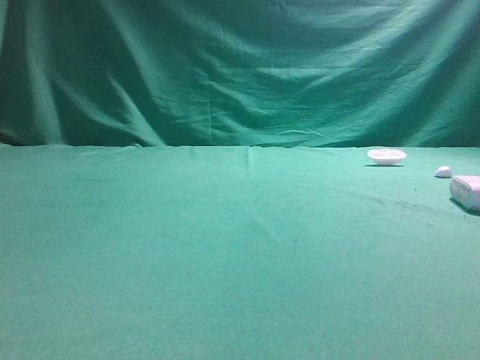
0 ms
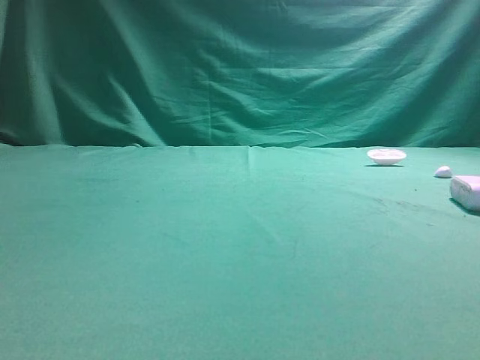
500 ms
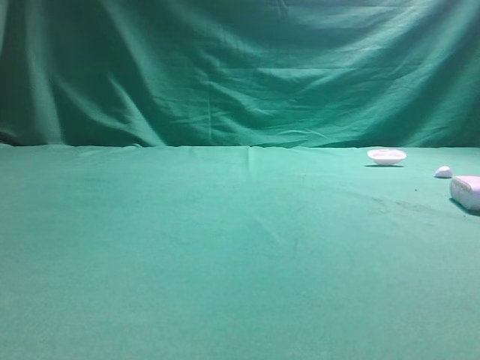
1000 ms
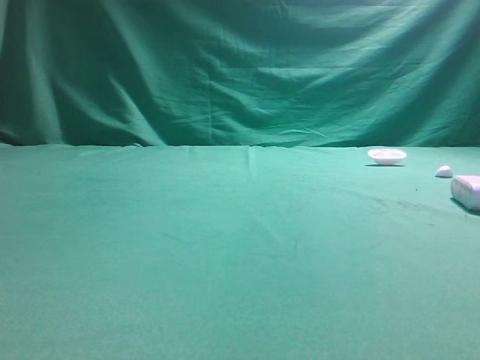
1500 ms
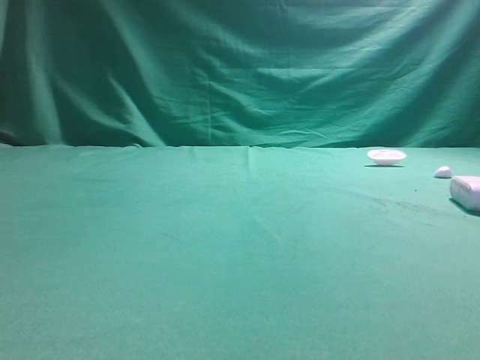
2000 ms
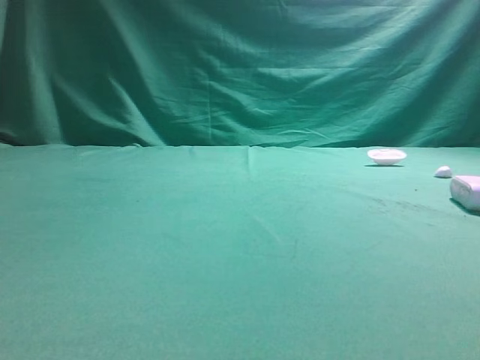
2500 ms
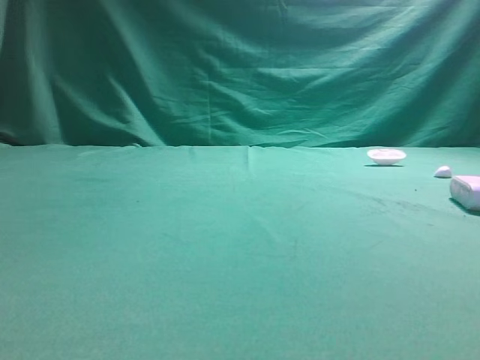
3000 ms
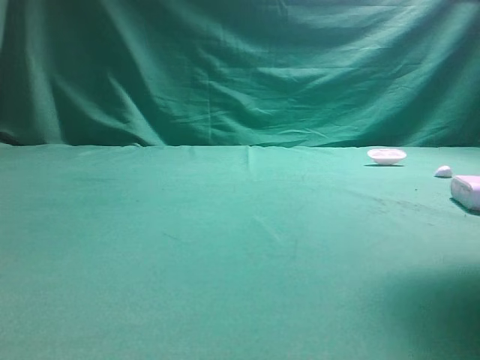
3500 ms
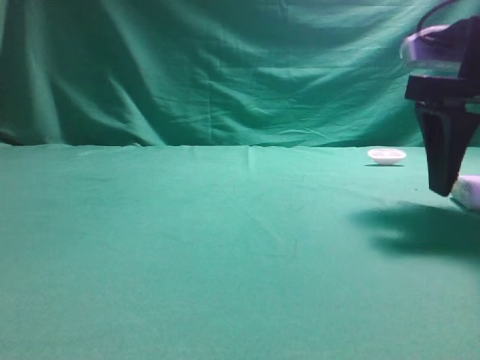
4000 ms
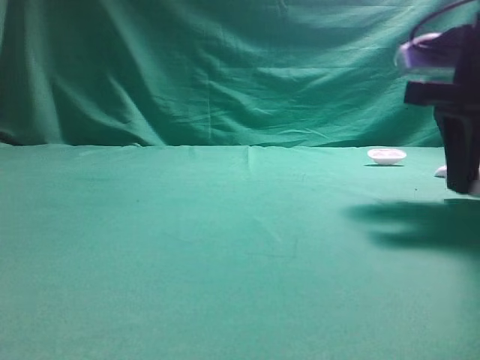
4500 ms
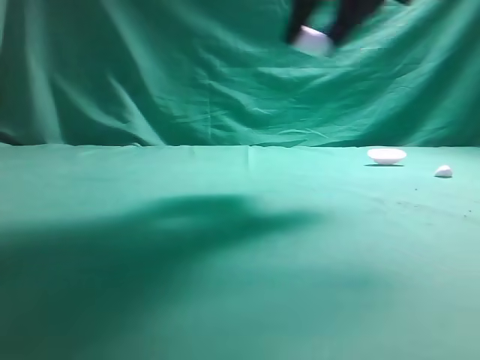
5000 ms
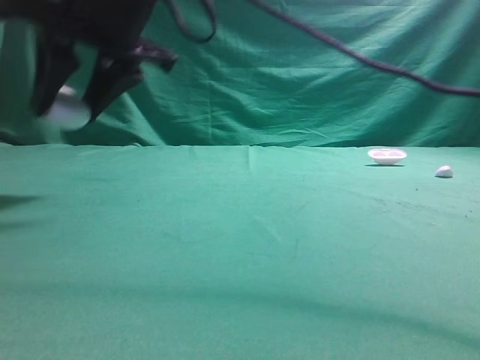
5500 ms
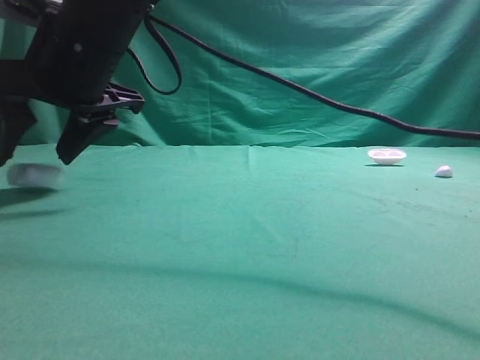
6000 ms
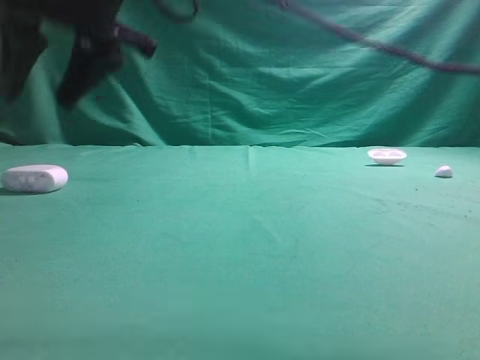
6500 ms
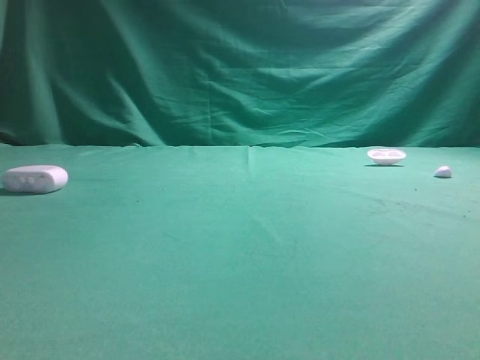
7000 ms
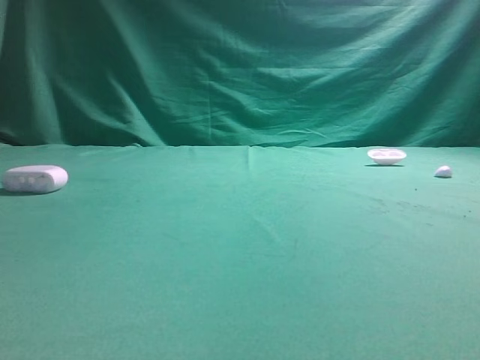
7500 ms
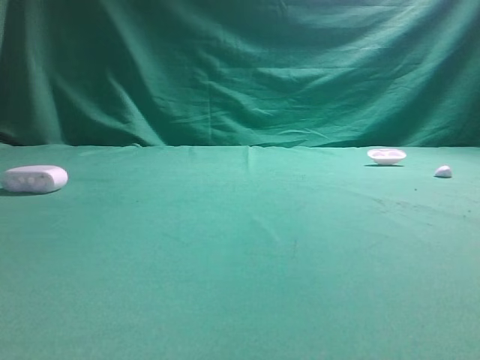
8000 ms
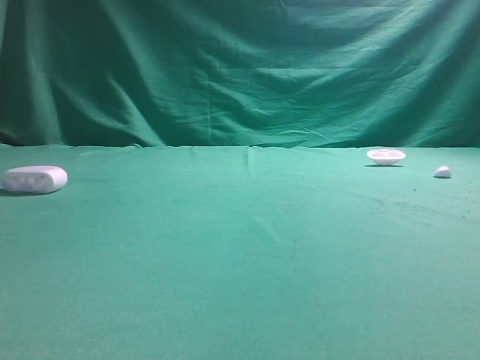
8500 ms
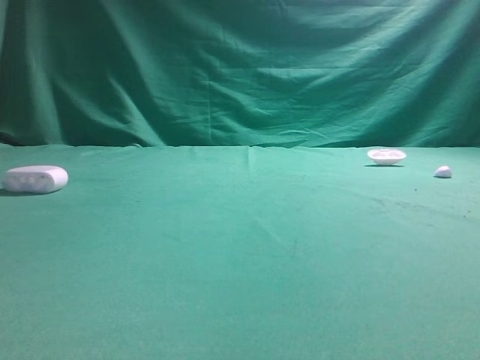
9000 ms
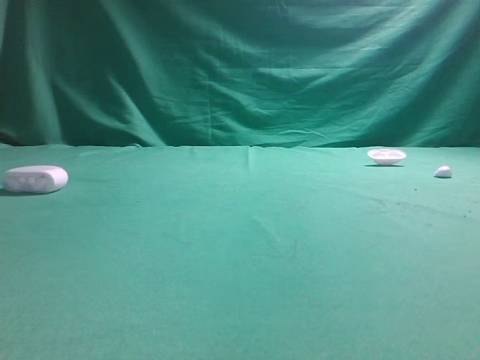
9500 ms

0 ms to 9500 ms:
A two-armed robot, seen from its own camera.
Step, 0 ms to 3500 ms: Grasp the Bluetooth earphone case.
Step, 4000 ms to 6000 ms: Place bluetooth earphone case on the left side of the table.

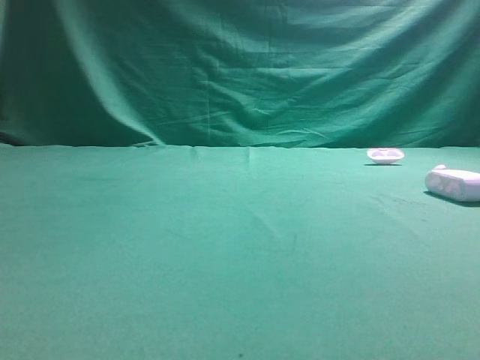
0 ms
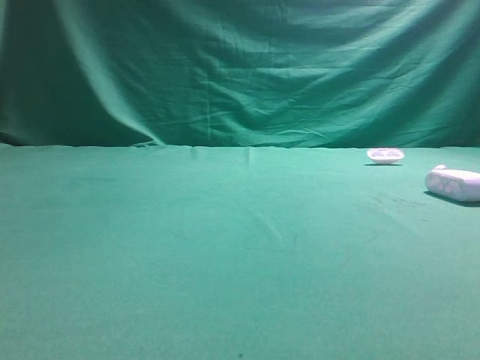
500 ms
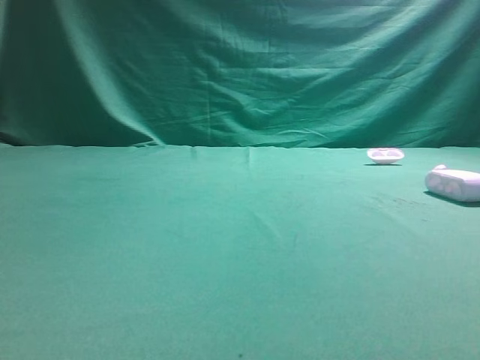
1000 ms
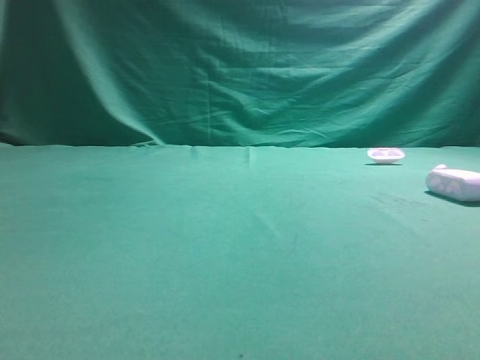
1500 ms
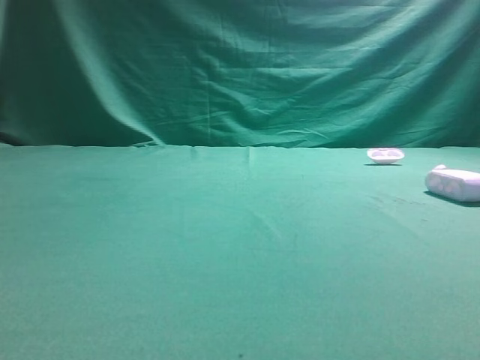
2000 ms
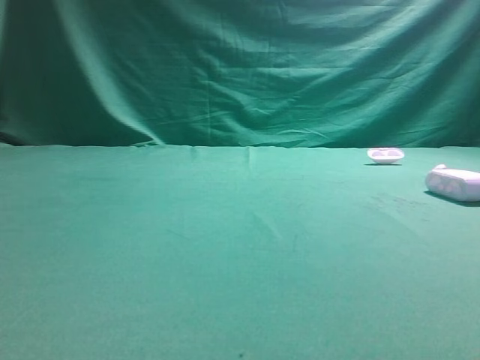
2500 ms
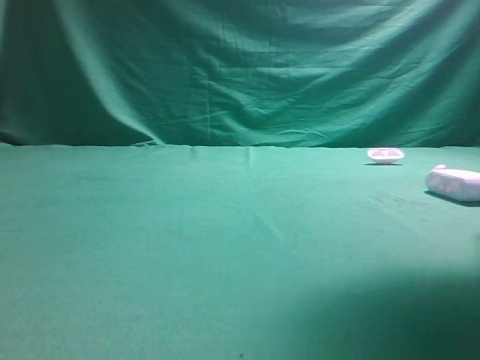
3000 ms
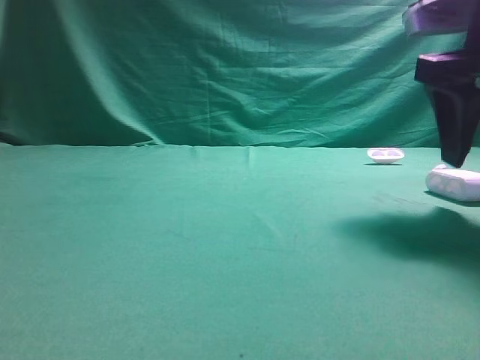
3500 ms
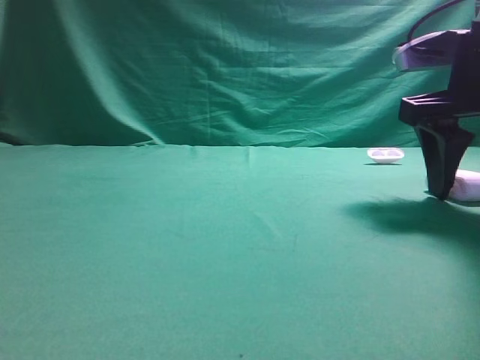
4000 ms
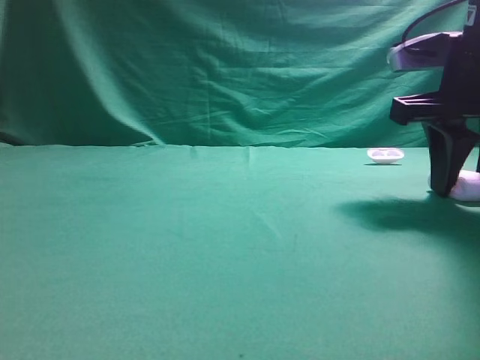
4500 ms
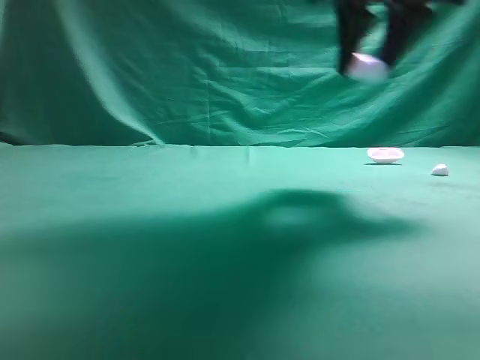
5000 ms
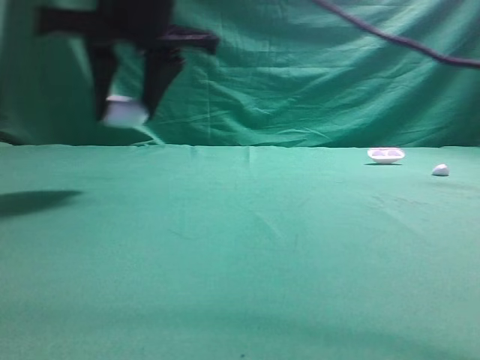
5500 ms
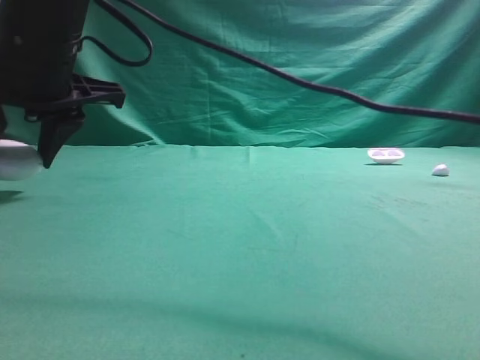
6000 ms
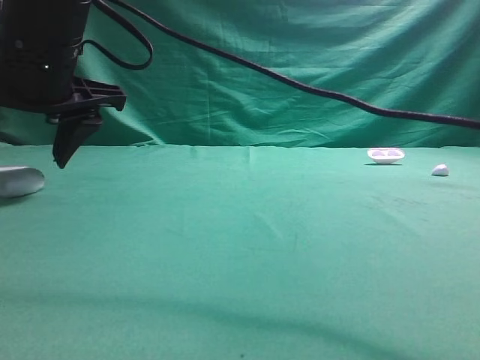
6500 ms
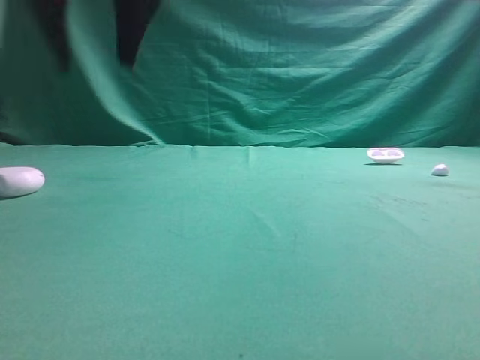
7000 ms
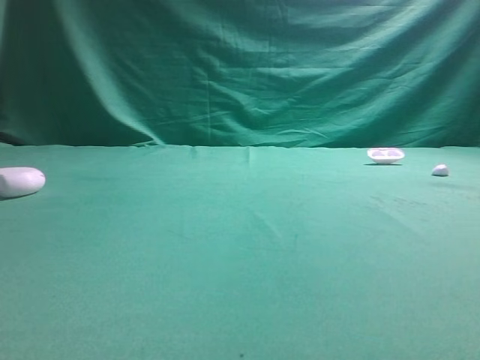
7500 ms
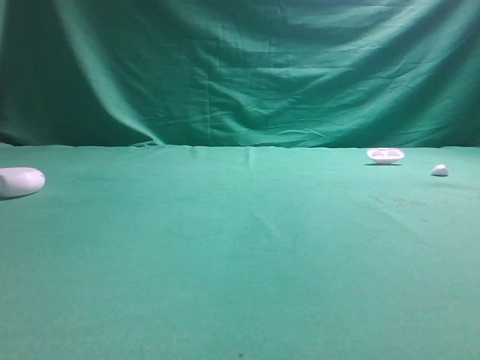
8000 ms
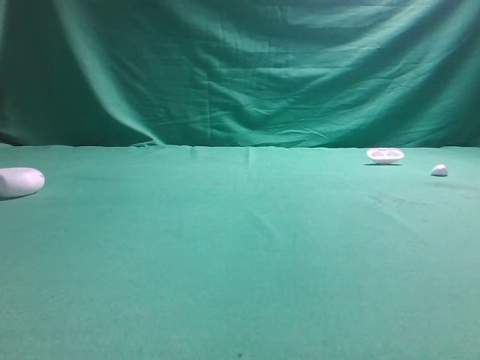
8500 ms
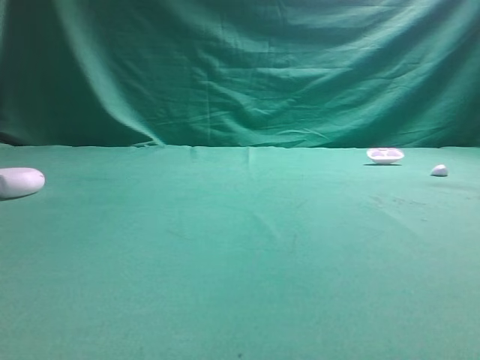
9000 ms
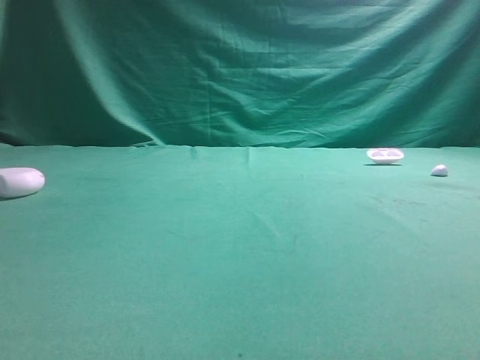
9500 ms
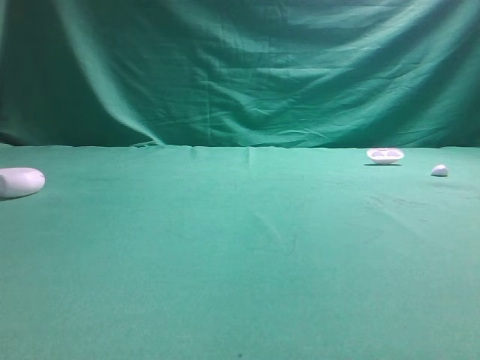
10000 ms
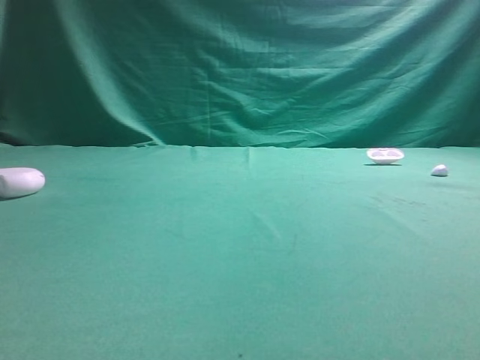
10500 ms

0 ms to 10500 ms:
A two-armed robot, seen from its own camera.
Step, 0 ms to 4500 ms: Grasp the Bluetooth earphone case.
Step, 5000 ms to 6500 ms: Place bluetooth earphone case on the left side of the table.
